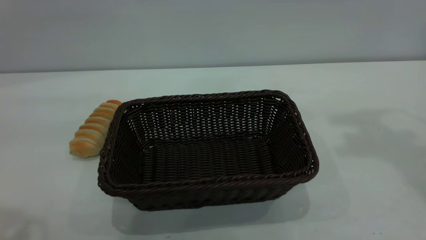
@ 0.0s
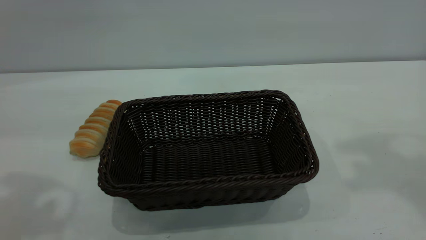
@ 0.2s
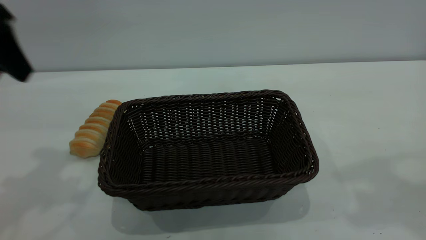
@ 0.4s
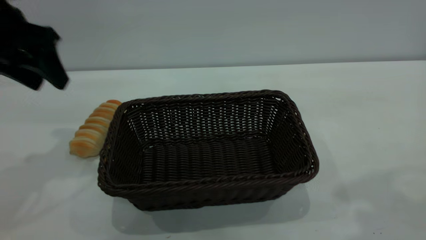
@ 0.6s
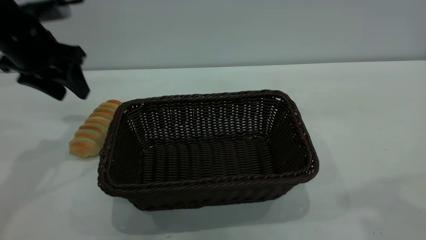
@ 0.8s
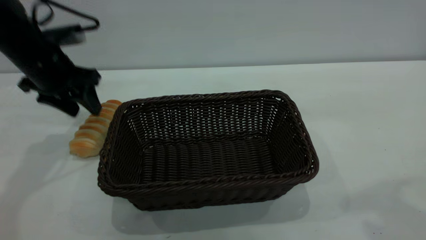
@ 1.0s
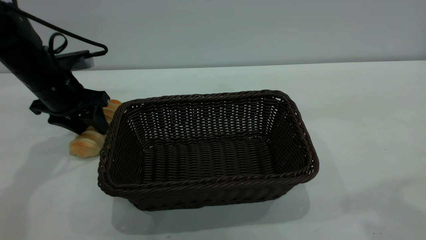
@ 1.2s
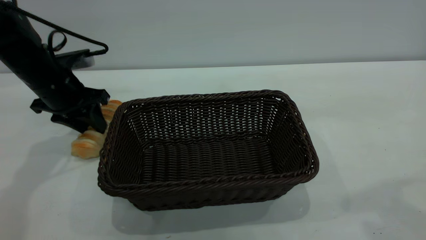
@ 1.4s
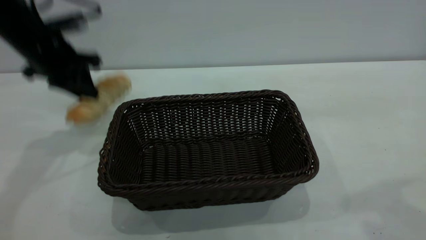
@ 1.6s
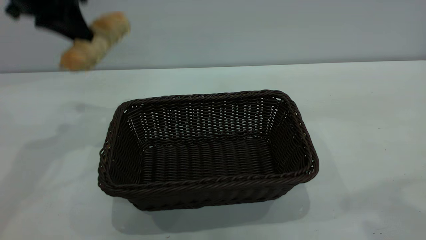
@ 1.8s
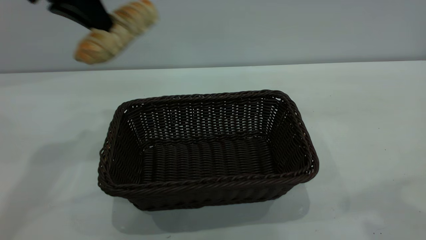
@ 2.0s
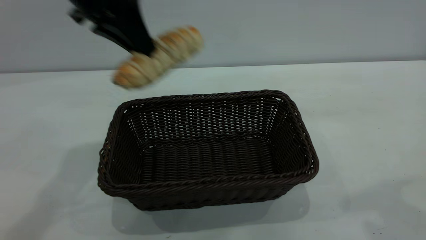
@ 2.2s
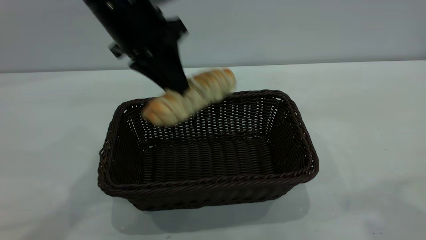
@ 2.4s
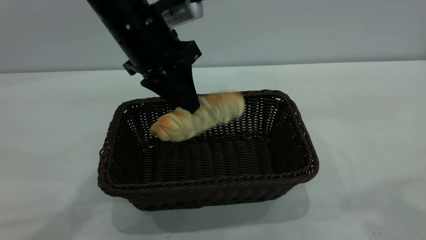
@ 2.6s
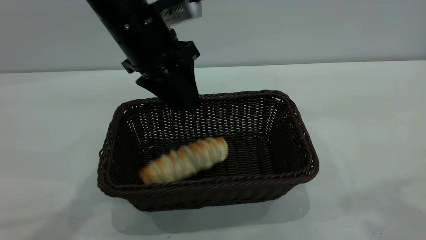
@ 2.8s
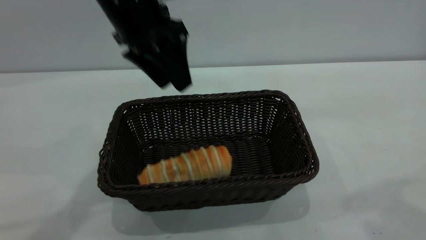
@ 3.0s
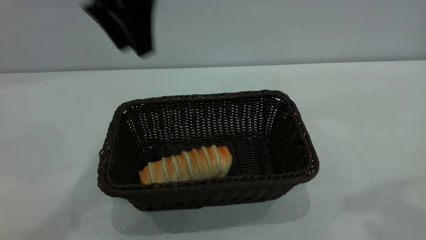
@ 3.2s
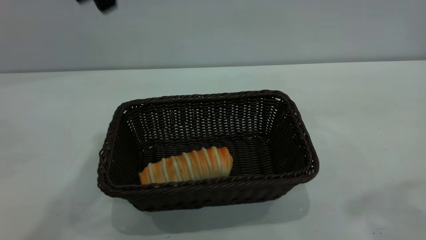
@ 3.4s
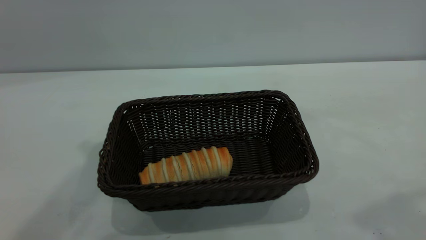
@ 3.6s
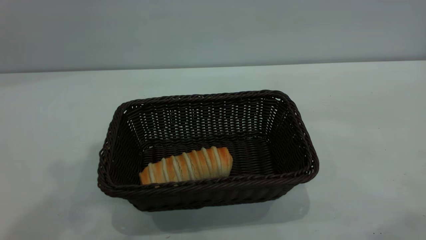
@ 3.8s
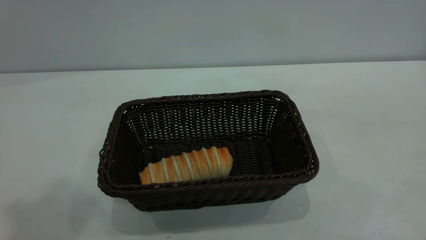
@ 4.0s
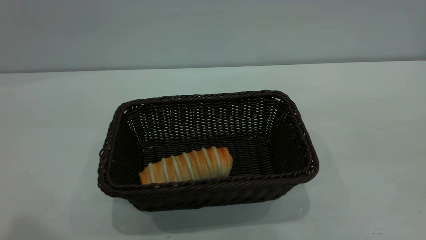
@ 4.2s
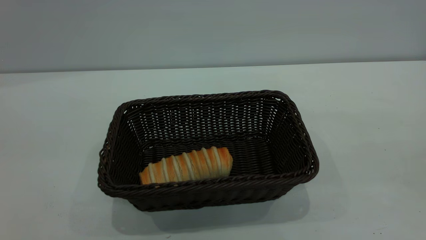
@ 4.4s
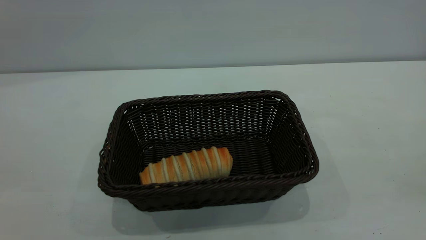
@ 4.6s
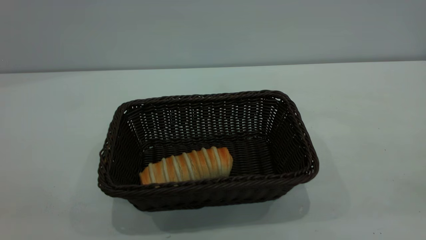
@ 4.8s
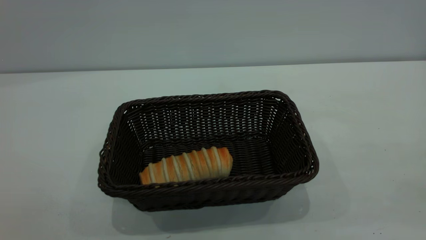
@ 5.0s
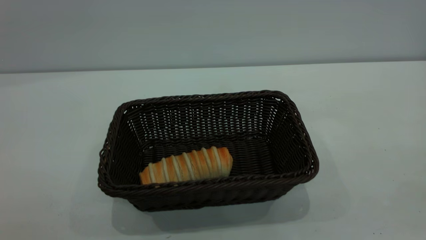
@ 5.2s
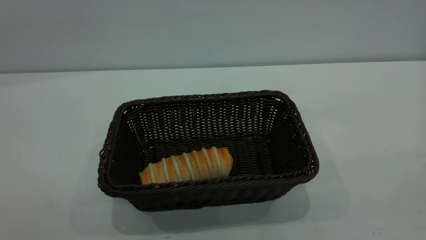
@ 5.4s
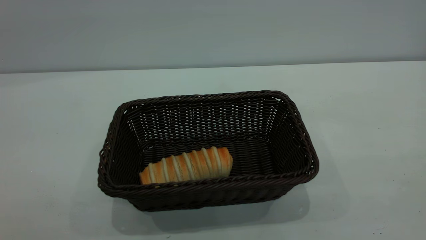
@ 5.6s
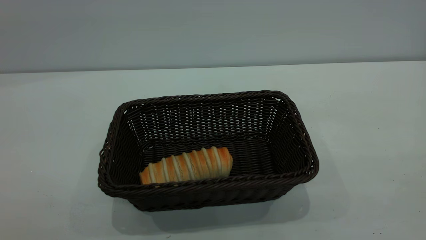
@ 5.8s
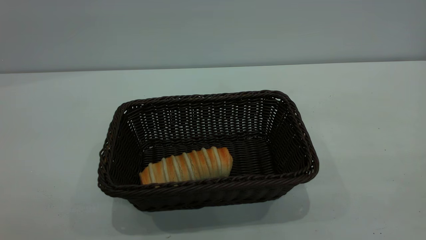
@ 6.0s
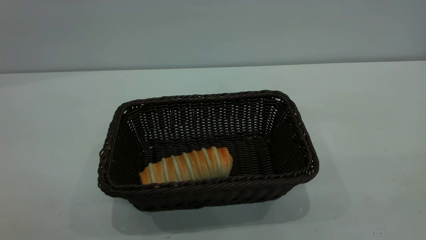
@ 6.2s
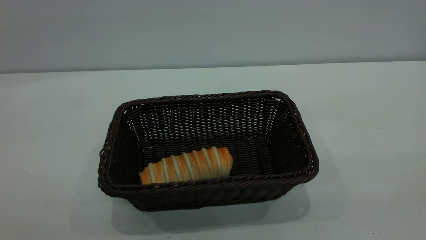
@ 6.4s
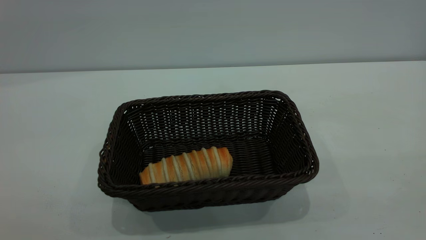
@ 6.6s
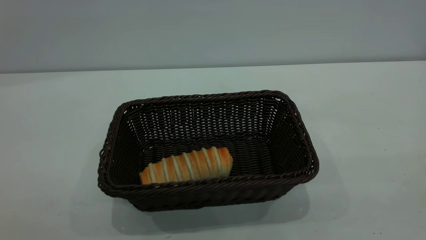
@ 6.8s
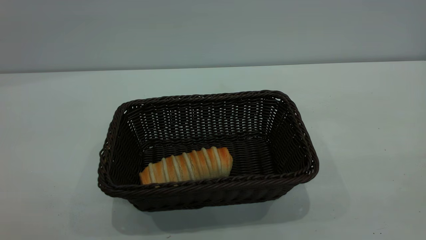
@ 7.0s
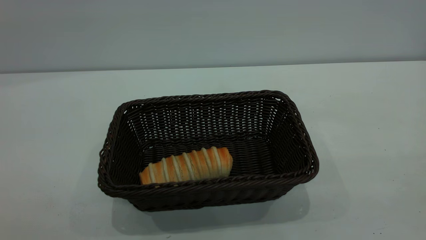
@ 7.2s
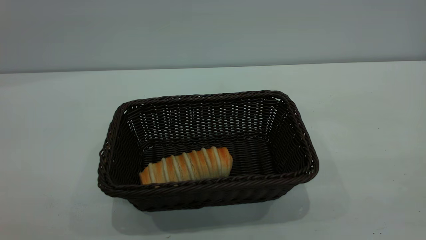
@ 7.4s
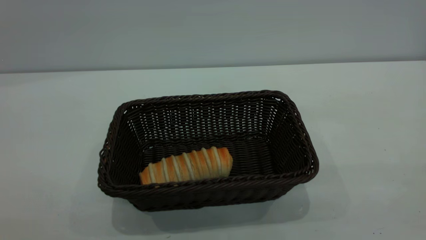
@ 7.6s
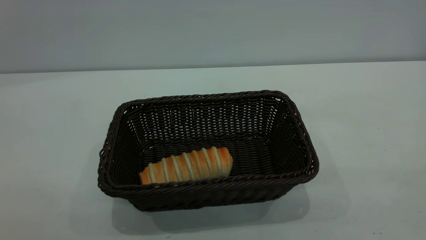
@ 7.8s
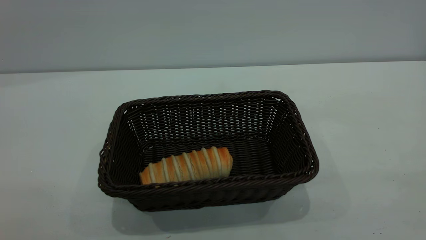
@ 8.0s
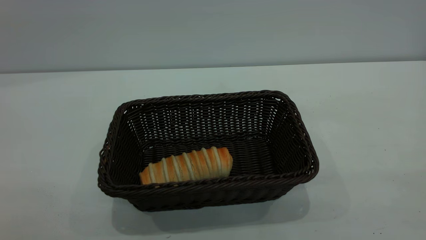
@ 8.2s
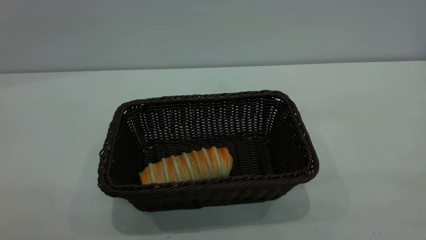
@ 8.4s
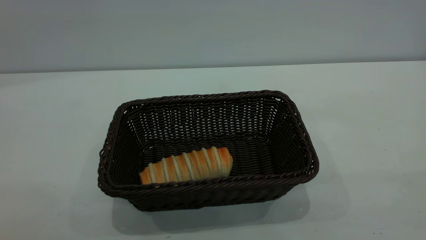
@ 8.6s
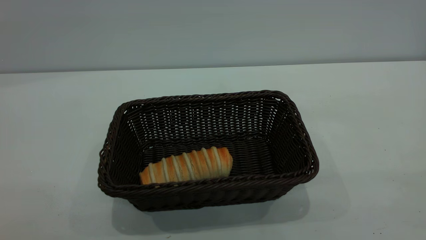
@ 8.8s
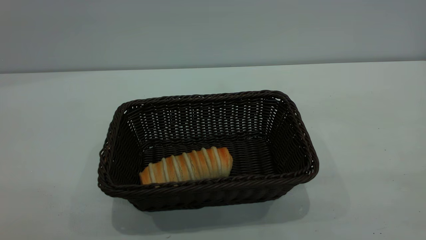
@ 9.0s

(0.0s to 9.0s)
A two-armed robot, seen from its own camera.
Task of the whole recording: One hand grasps the black basket and places it in the middle of the table, while the other hand picks up the long bread and puts it into the black basket.
Step, 1.8s - 2.8s: place the bread into the basket.
0.0s - 1.6s: The left gripper heads forward and downward, covering roughly 30 cm, and closes its fingers. The right gripper travels backward by roughly 15 cm.
1.6s - 3.0s: The left gripper travels to the right by some 15 cm, and opens.
3.0s - 4.4s: The right gripper heads backward, covering approximately 15 cm; the left gripper shifts about 35 cm backward, upward and to the left.
